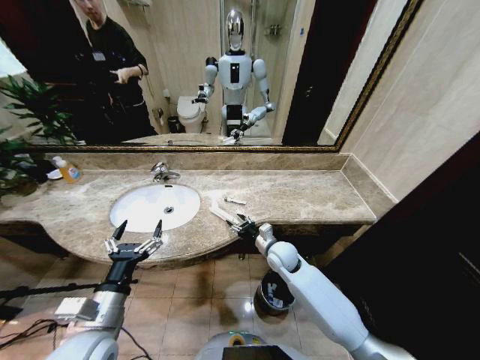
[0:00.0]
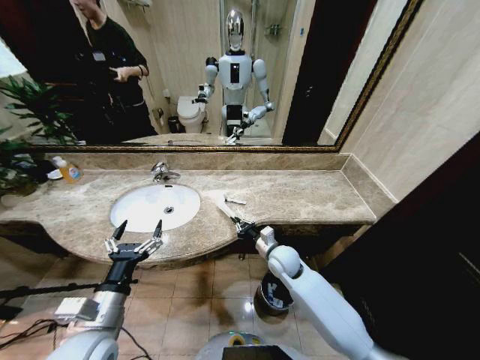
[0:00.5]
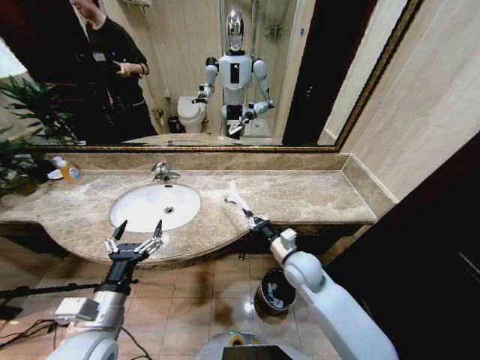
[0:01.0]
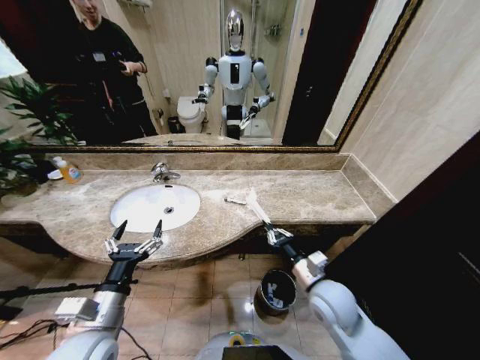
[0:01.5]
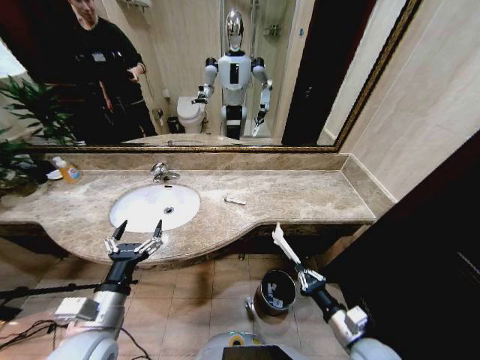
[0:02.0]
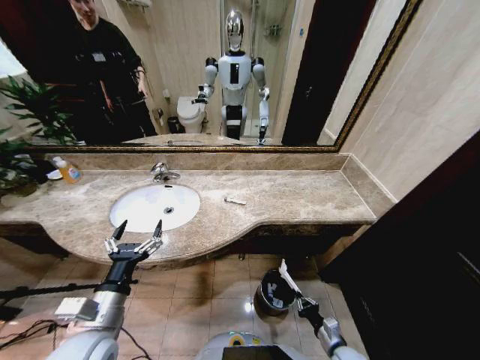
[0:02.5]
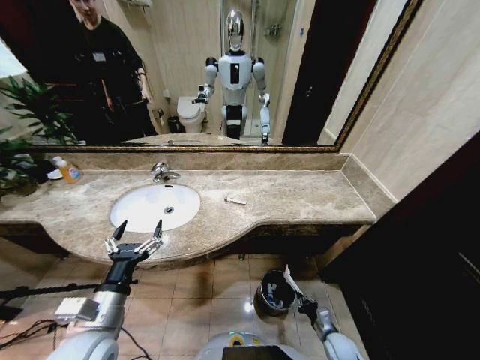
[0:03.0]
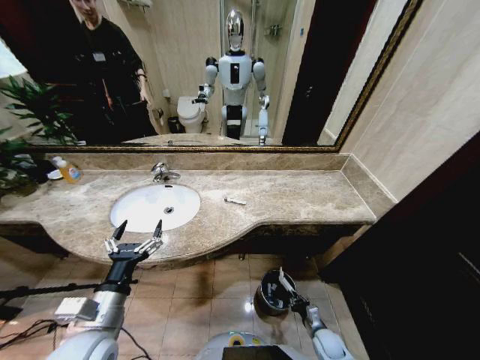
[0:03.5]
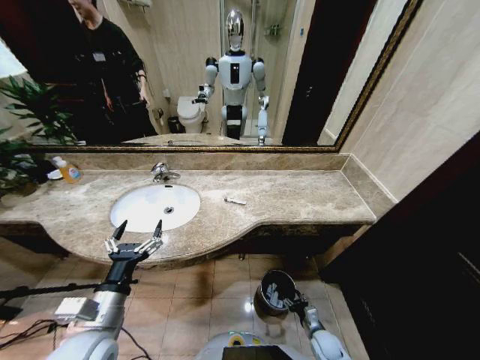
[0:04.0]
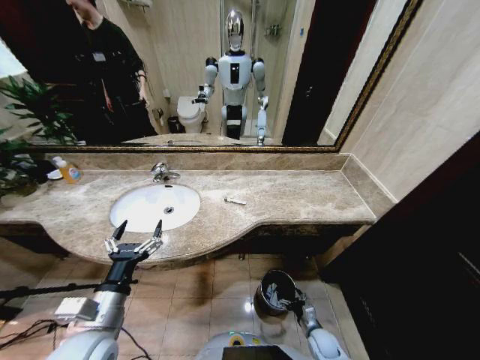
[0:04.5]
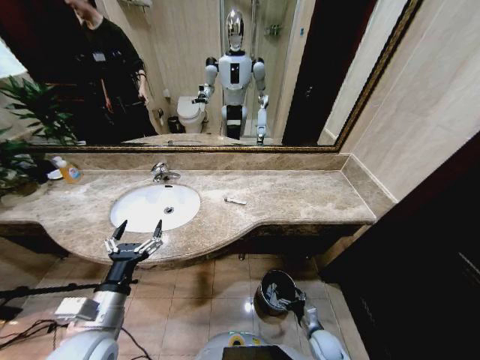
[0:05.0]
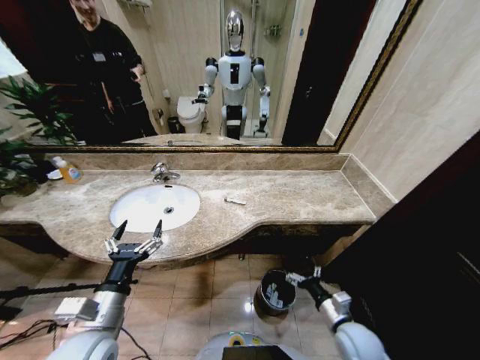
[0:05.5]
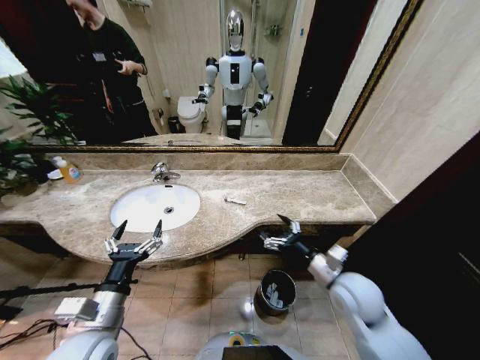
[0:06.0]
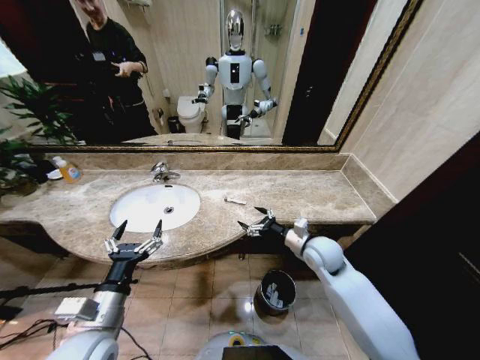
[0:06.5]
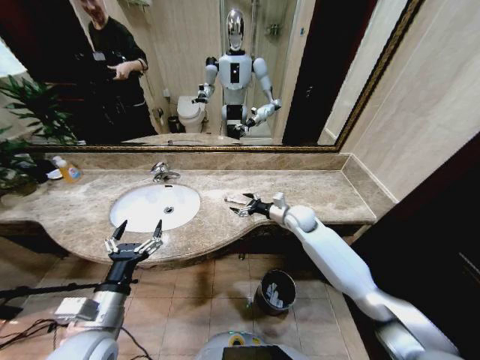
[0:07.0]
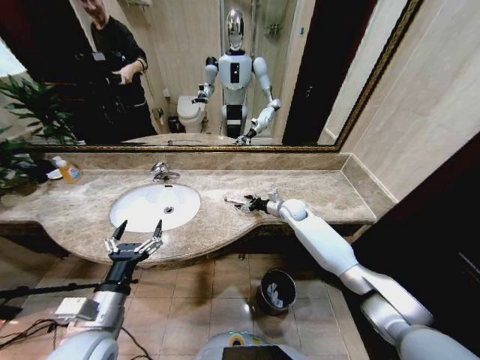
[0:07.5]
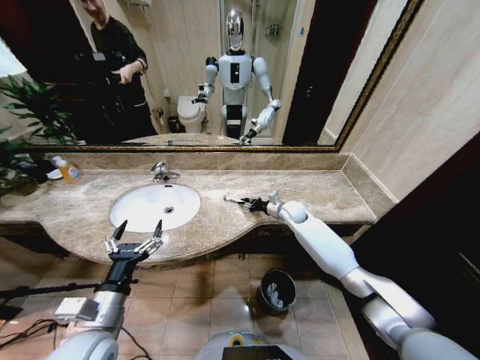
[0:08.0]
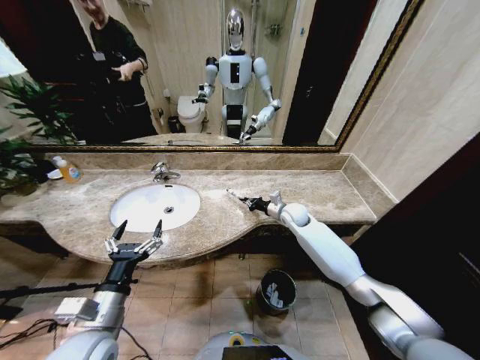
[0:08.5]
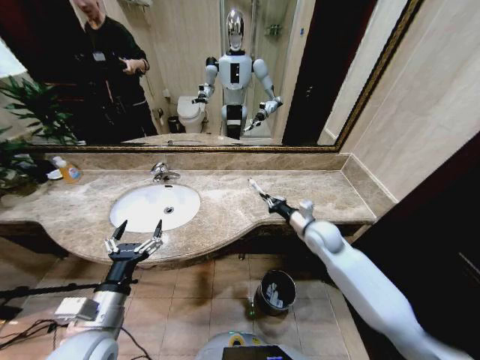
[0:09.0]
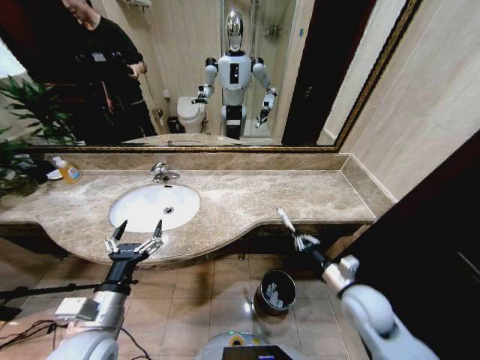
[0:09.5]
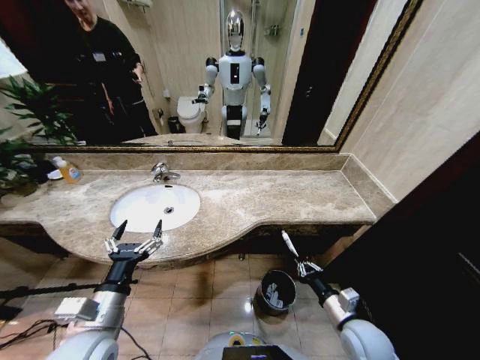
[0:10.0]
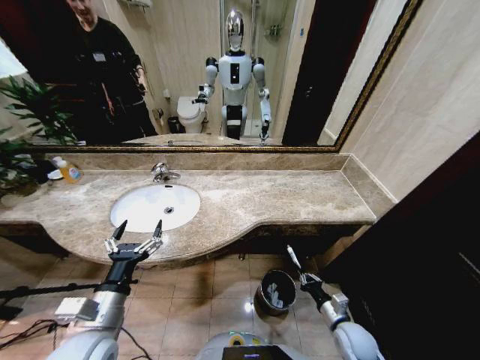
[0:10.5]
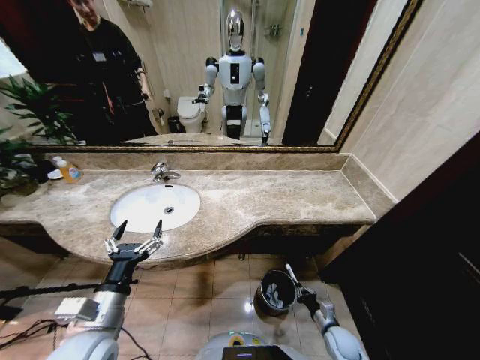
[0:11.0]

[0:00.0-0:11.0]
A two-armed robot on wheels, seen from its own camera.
Task of the whole recording: Pick up the trash from the sink and place it in the trash bin.
0:00.0 to 0:02.0: The right gripper goes about 30 cm backward and to the right, and closes up.
0:02.0 to 0:03.5: The right gripper is displaced downward by roughly 25 cm.
0:03.5 to 0:05.5: The right gripper is displaced upward by roughly 20 cm, and opens up.
0:05.5 to 0:07.5: The right gripper moves forward, roughly 40 cm.
0:07.5 to 0:09.0: The right gripper goes about 15 cm backward, and closes.
0:09.0 to 0:11.0: The right gripper heads downward and backward, covering approximately 40 cm.

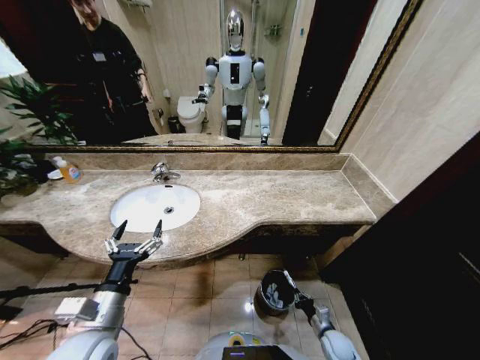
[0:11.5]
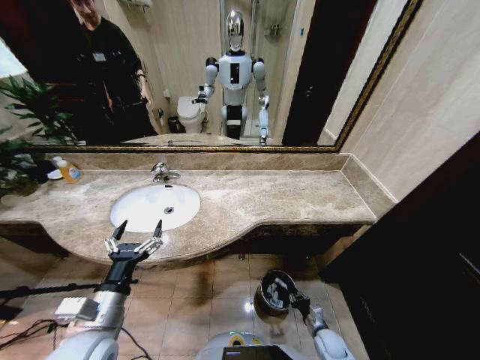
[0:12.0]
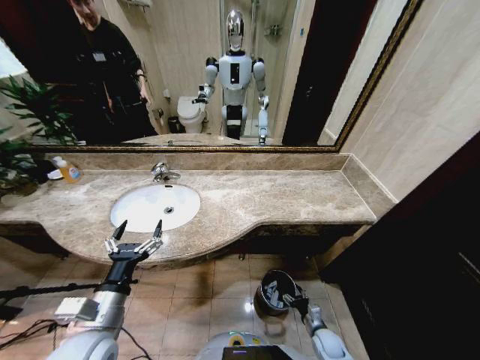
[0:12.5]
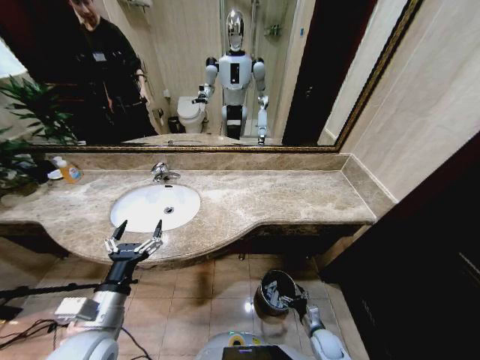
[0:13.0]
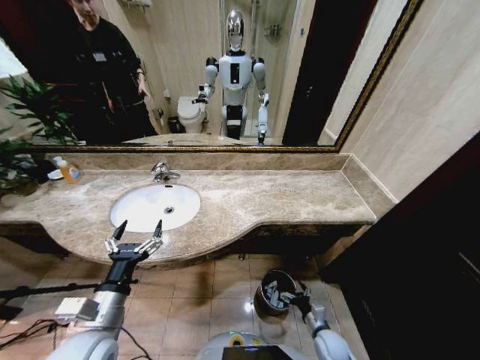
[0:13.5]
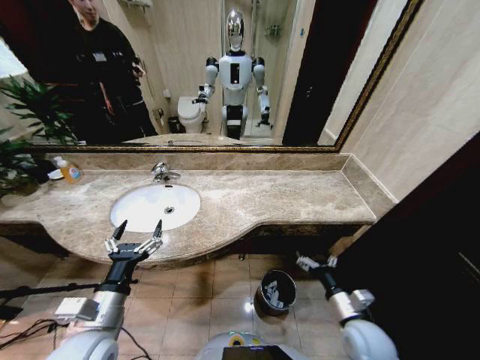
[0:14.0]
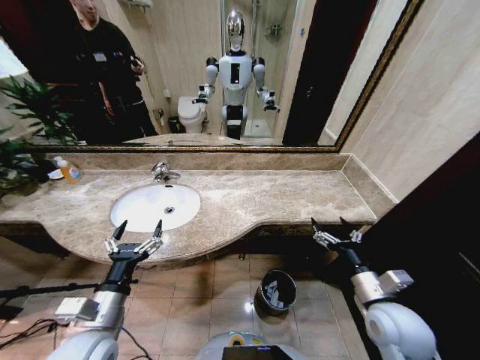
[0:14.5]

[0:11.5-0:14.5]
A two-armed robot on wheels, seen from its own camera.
Task of the whole recording: Pick up the trash from the sink and place it in the trash bin.
0:11.5 to 0:13.0: The right gripper opens.
0:13.0 to 0:14.5: The right gripper goes some 35 cm upward.

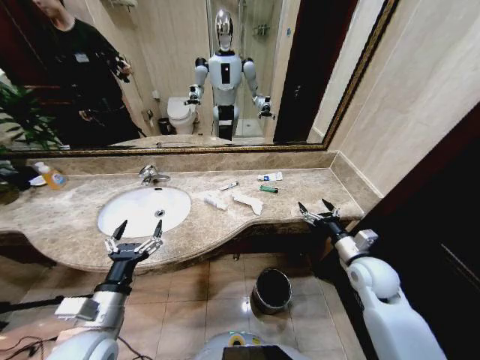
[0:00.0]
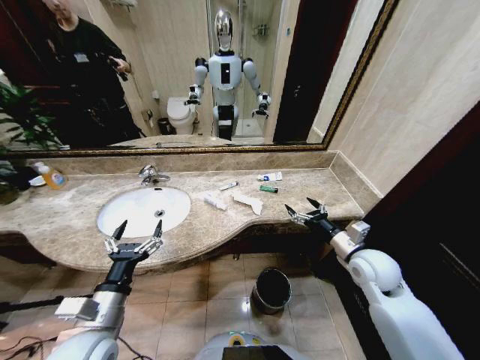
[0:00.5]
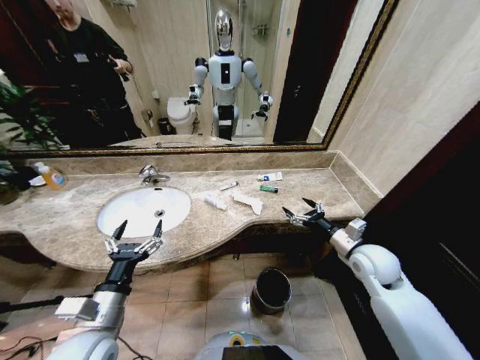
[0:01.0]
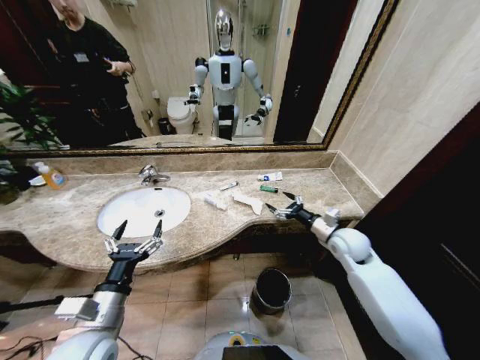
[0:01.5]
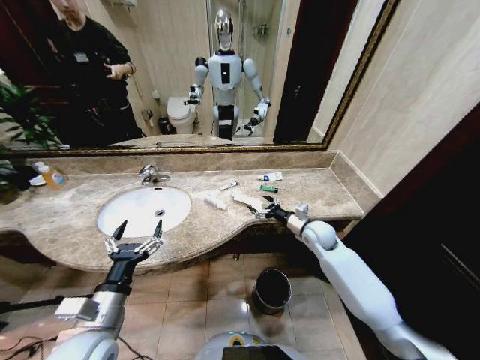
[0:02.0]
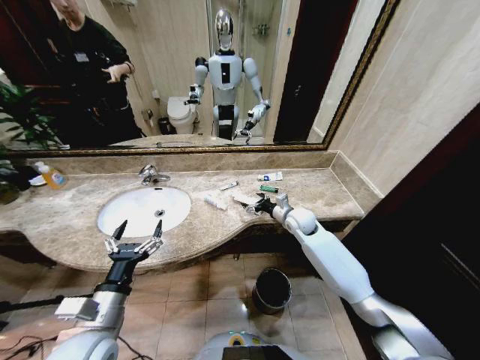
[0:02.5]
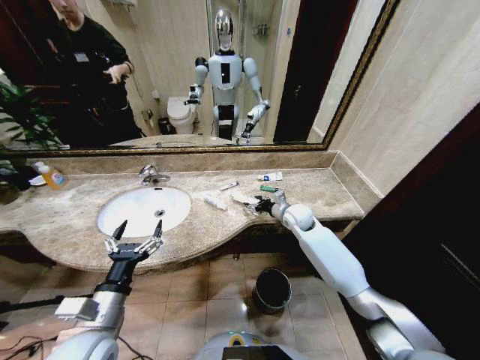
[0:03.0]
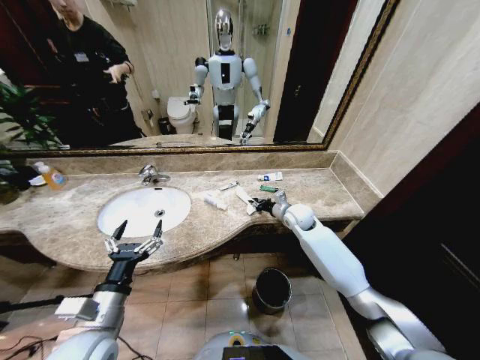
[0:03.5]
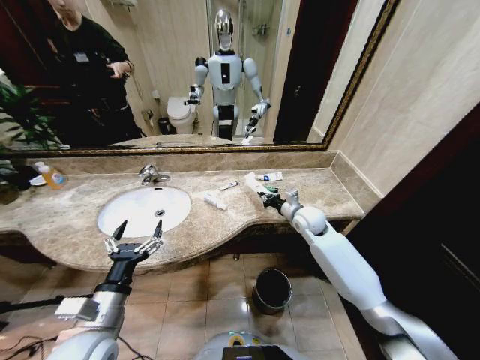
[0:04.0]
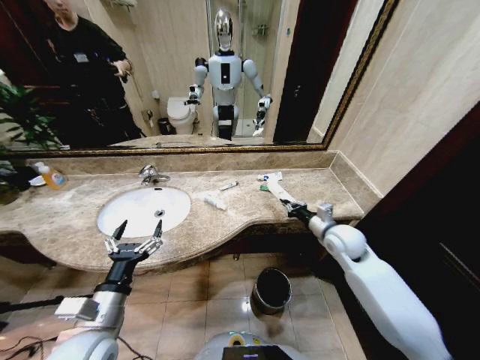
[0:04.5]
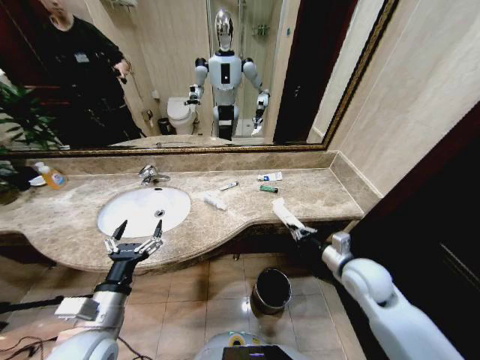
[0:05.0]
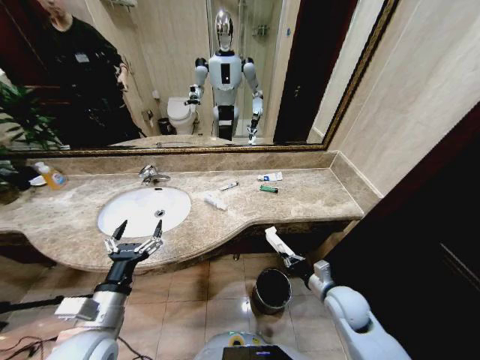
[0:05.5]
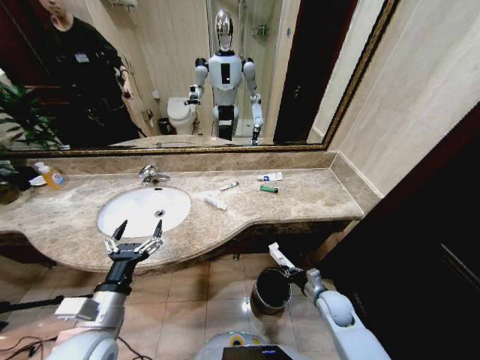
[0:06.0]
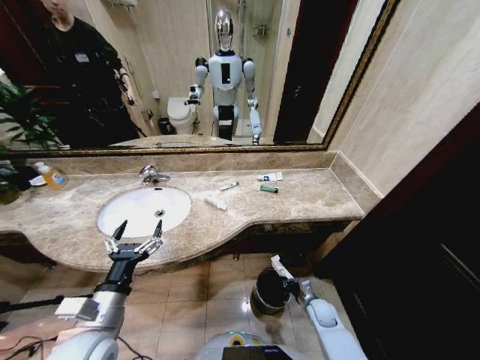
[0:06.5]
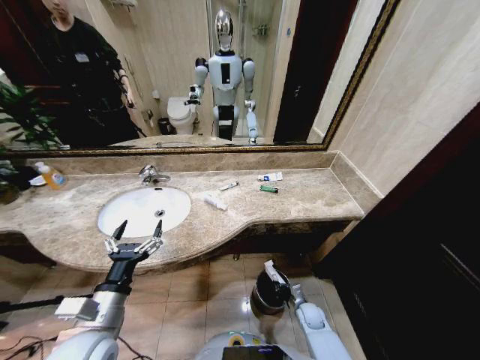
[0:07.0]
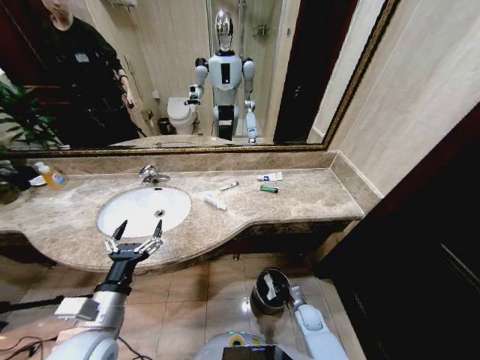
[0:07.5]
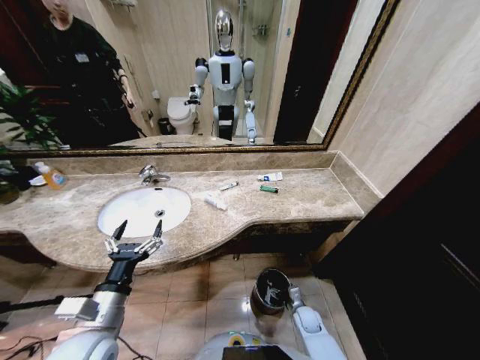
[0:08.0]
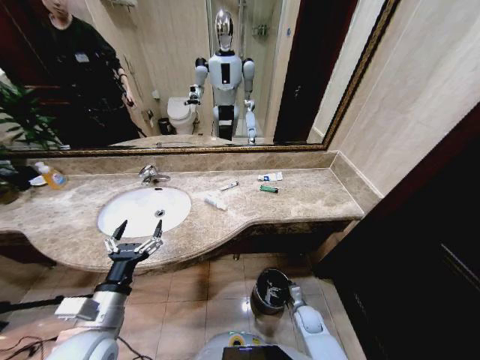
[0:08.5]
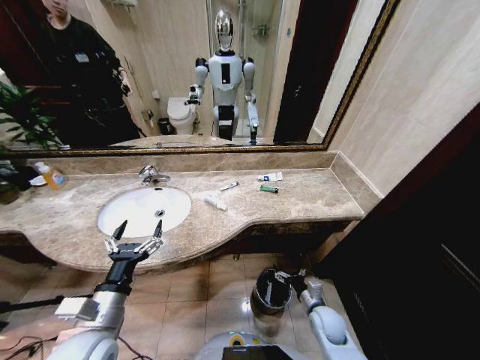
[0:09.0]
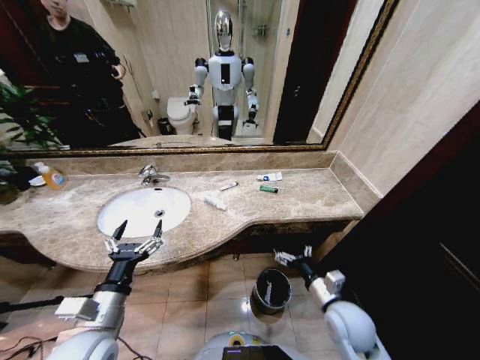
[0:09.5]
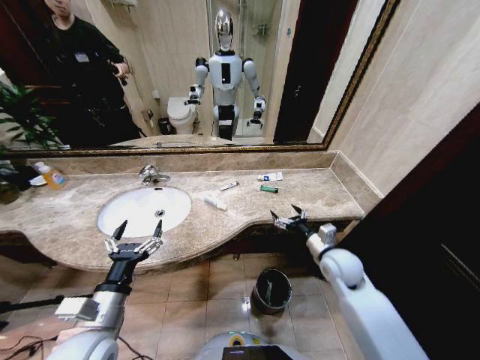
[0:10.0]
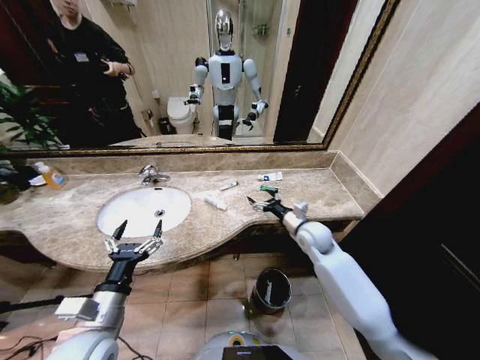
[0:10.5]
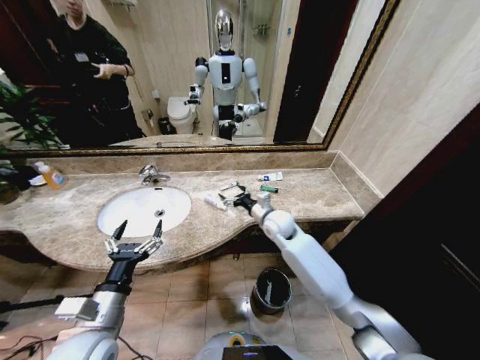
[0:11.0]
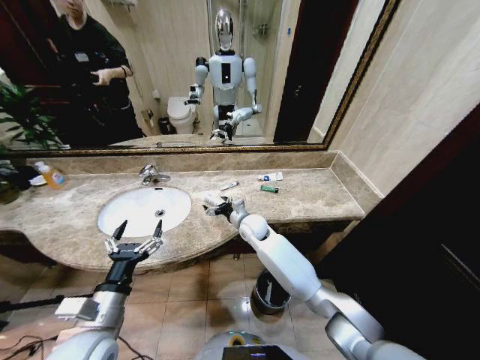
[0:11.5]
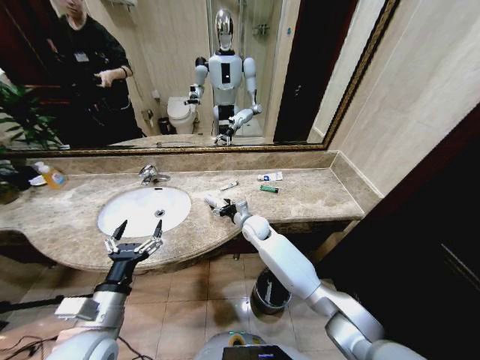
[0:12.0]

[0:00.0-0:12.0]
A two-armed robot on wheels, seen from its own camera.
Task of the whole recording: Pick up the trash from the sink and place it in the trash bin.
0:02.0 to 0:04.0: The right gripper ends up some 5 cm from where it was, and closes its fingers.
0:04.0 to 0:06.0: The right gripper travels backward and downward by roughly 30 cm.
0:06.0 to 0:08.0: The right gripper goes approximately 15 cm downward, and opens.
0:08.0 to 0:10.0: The right gripper goes roughly 30 cm upward.
0:10.0 to 0:12.0: The right gripper goes approximately 25 cm to the left and forward.
